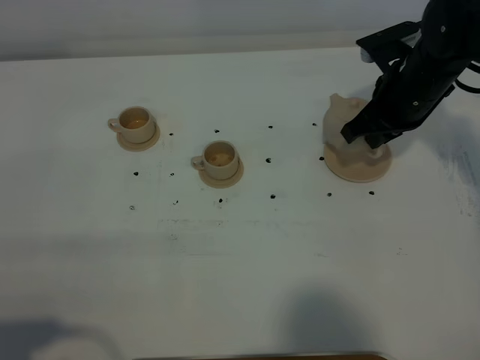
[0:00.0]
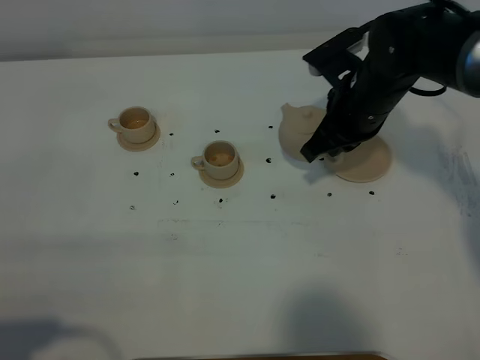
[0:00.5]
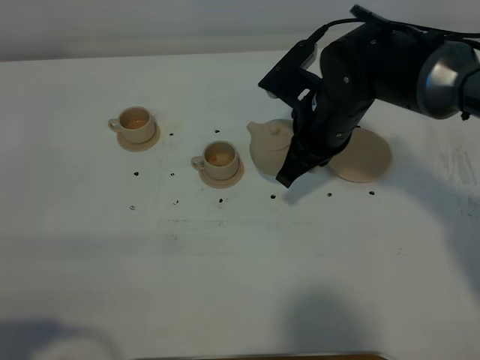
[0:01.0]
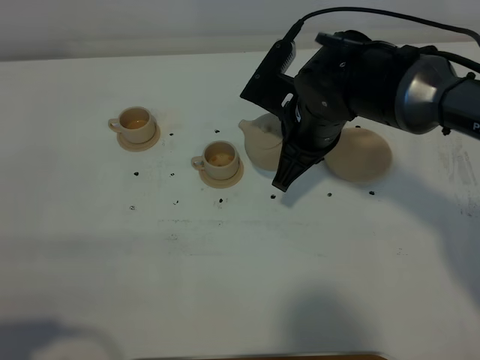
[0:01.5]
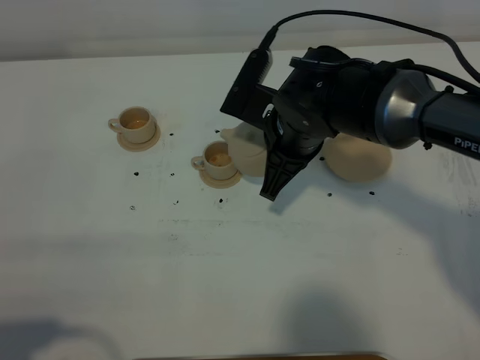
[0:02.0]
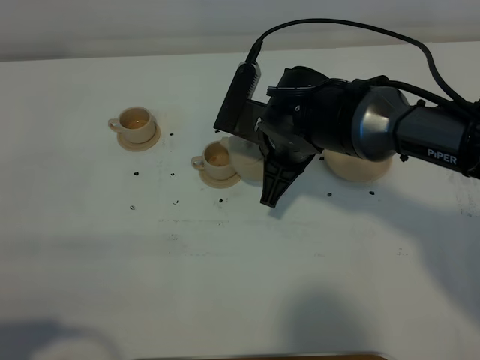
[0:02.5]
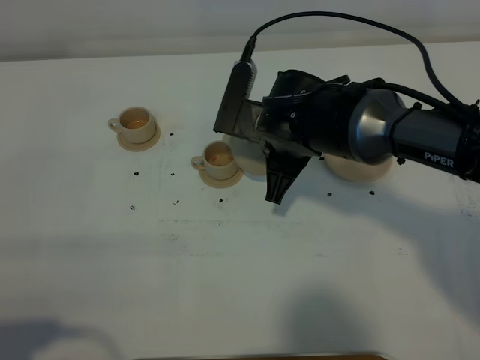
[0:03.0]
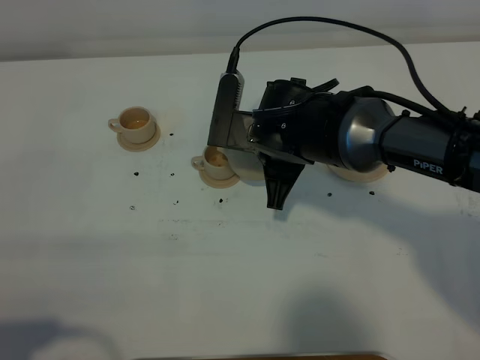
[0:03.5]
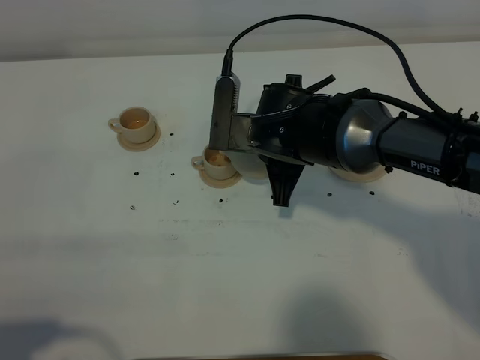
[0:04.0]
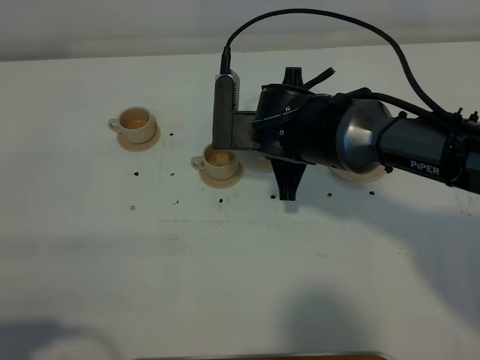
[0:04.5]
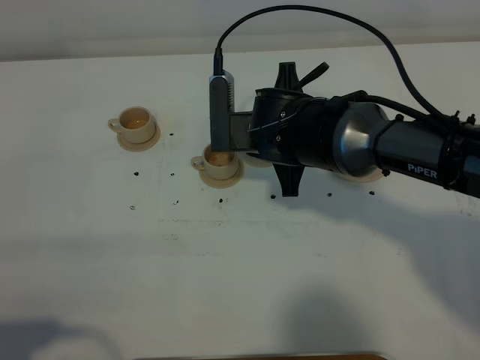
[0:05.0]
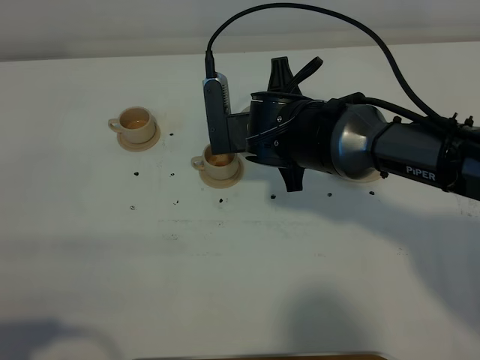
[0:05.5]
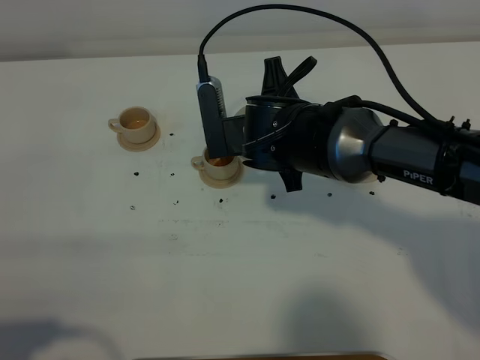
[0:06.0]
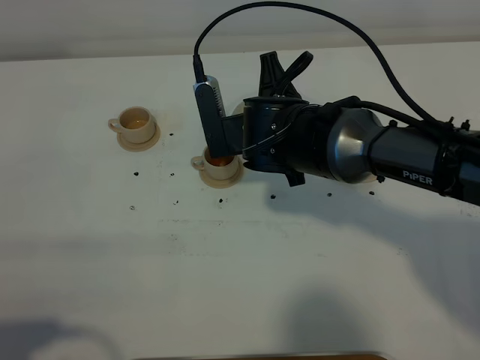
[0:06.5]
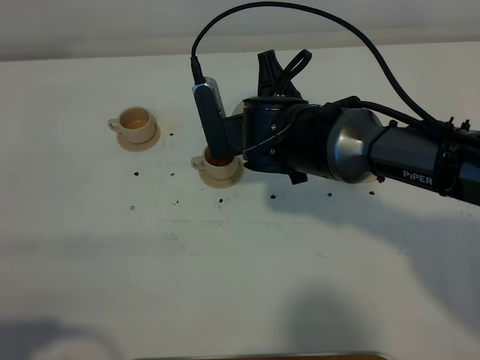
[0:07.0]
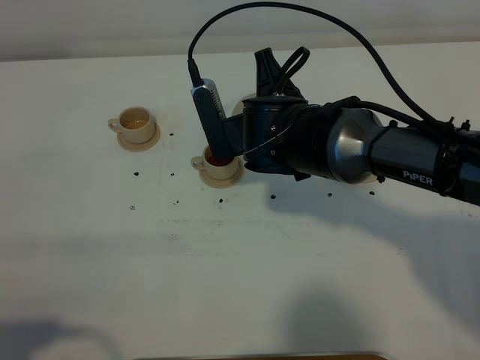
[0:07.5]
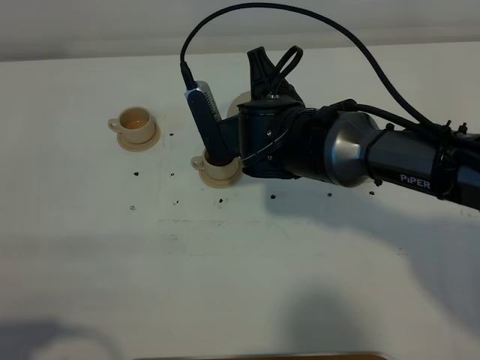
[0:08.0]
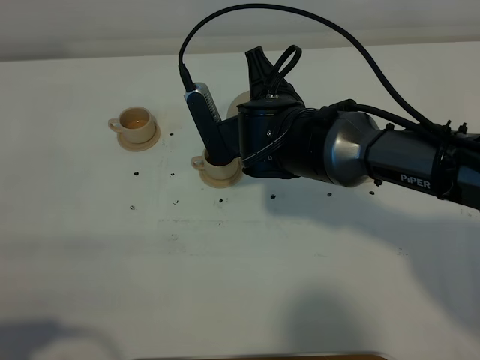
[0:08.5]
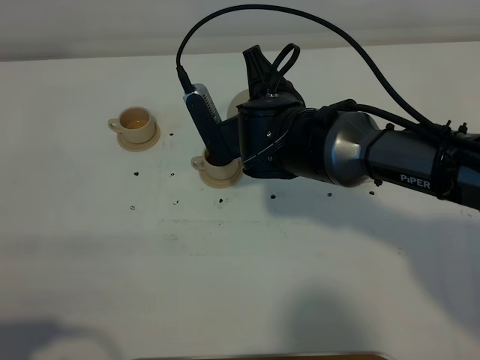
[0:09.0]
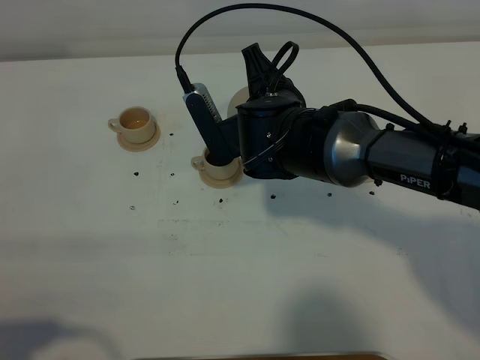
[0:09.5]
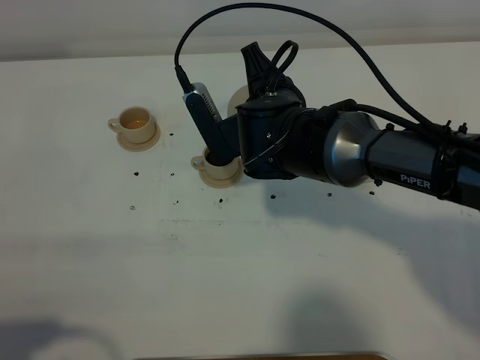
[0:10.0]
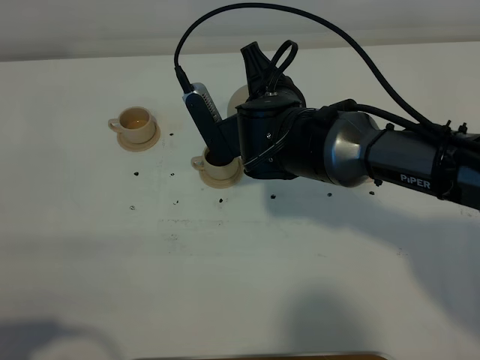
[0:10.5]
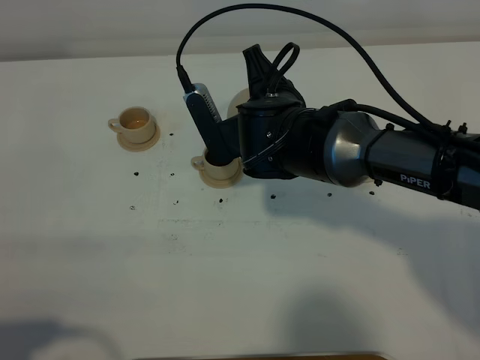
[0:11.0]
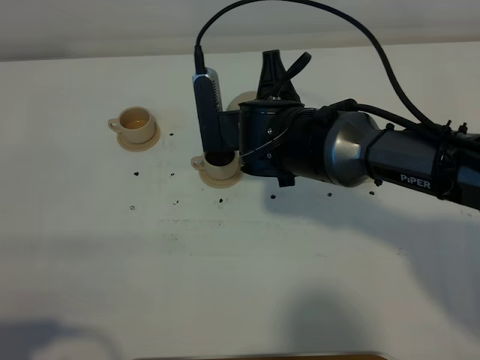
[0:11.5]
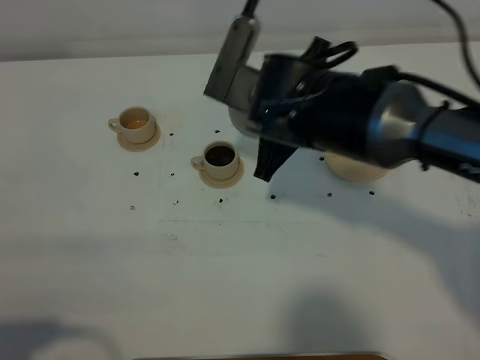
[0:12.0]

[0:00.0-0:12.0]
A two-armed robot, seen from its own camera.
Task of the whole recording: grasp the brown teapot and pour the tea into the two brown teacups one by one, put the brown teapot back in its original place.
0:00.0 to 0:02.0: The right gripper shifts some 15 cm to the left.
0:04.0 to 0:06.0: The grippers move only a little.
0:06.0 to 0:10.0: The grippers move only a little.
0:10.0 to 0:12.0: The right gripper shifts by about 5 cm.

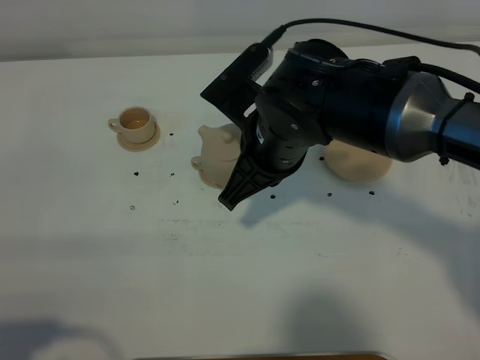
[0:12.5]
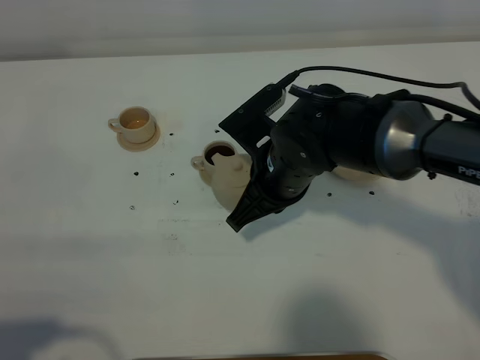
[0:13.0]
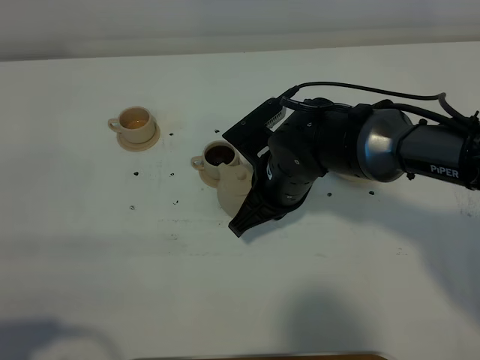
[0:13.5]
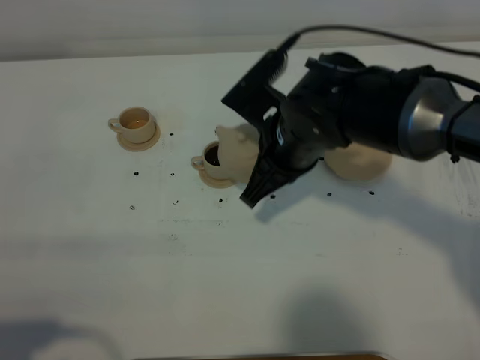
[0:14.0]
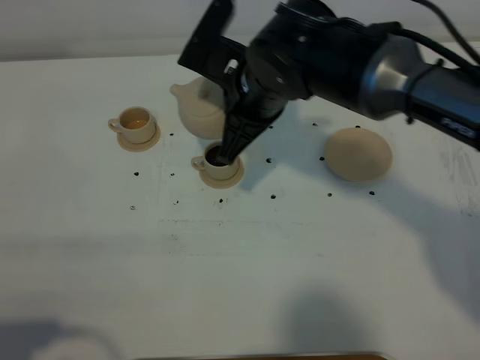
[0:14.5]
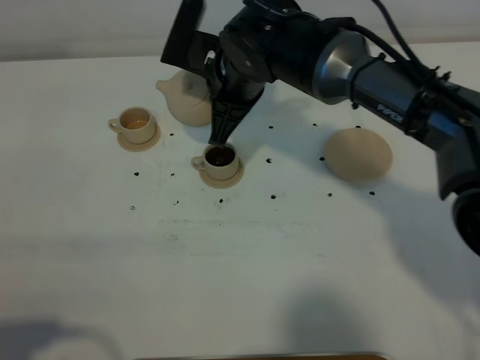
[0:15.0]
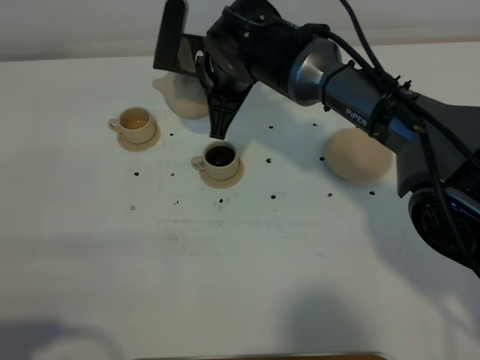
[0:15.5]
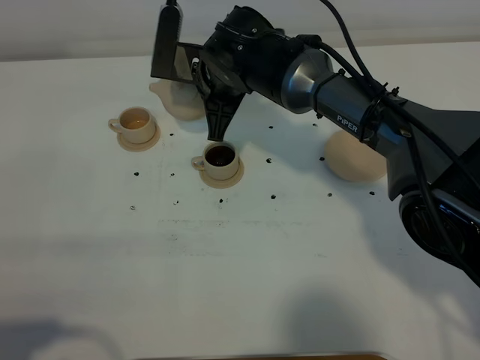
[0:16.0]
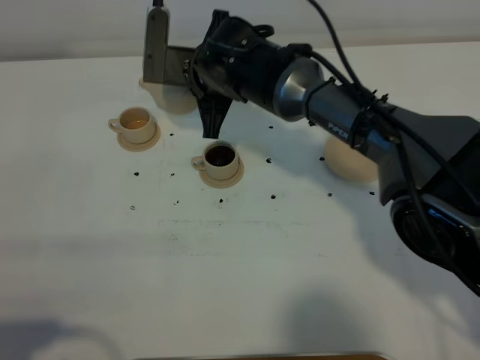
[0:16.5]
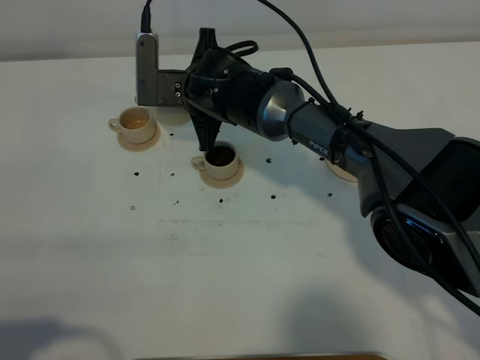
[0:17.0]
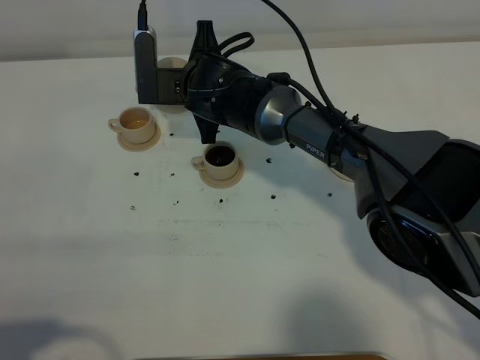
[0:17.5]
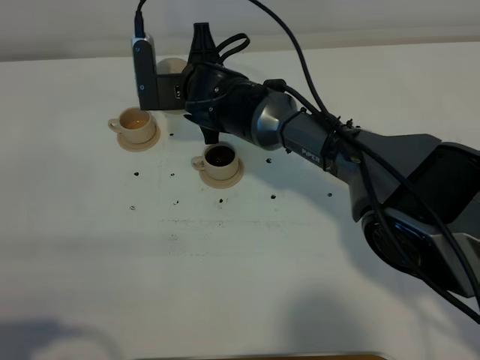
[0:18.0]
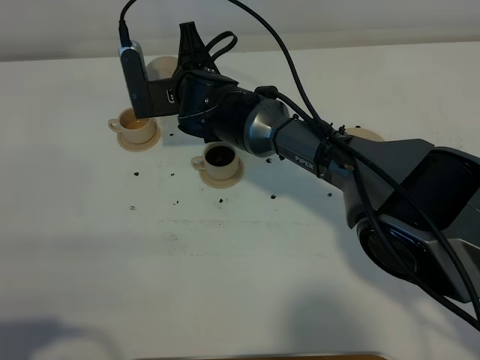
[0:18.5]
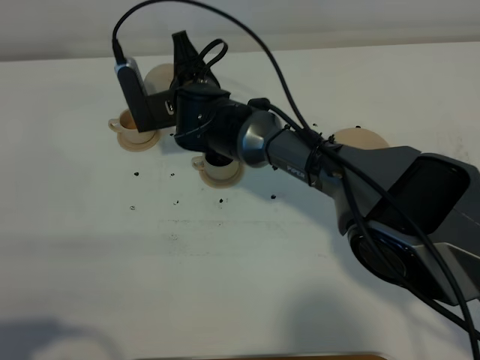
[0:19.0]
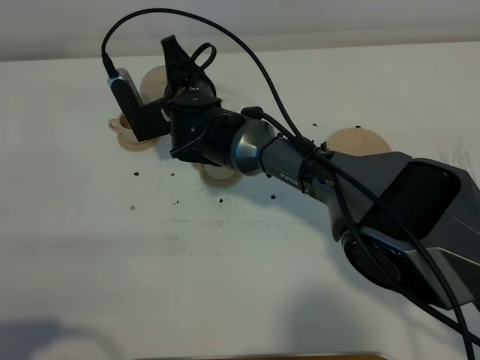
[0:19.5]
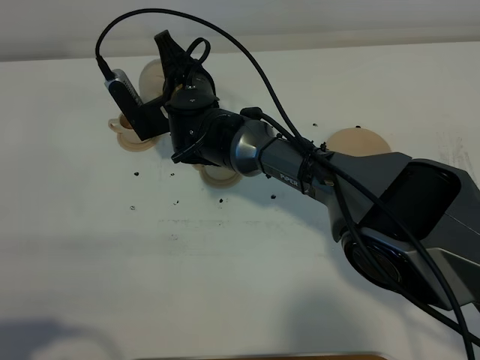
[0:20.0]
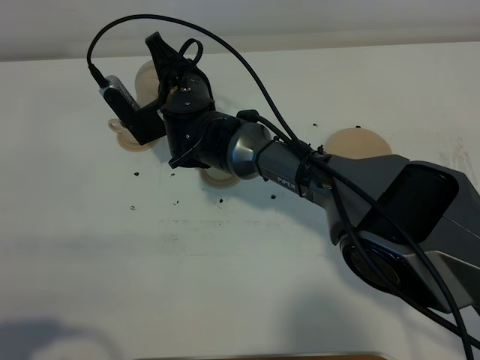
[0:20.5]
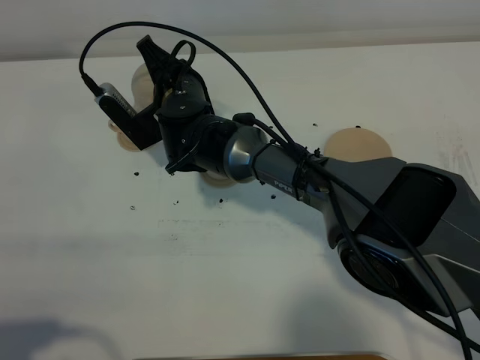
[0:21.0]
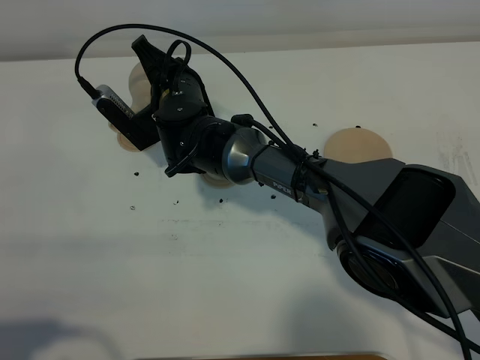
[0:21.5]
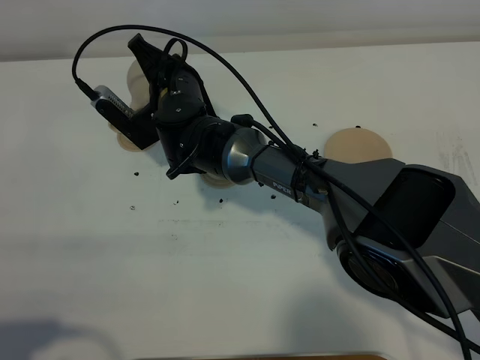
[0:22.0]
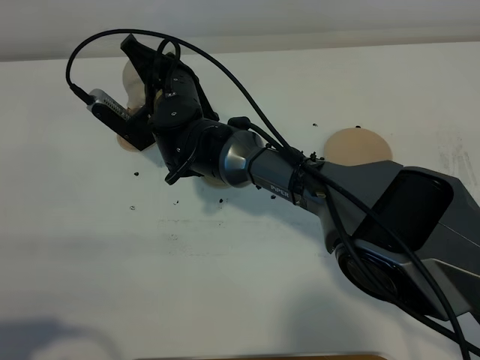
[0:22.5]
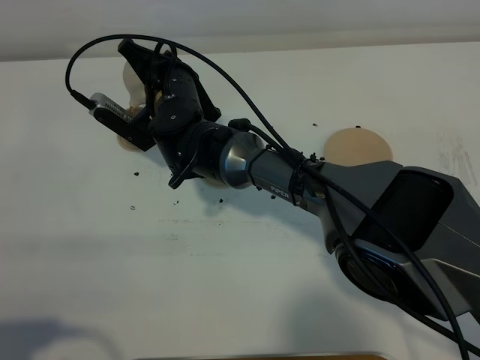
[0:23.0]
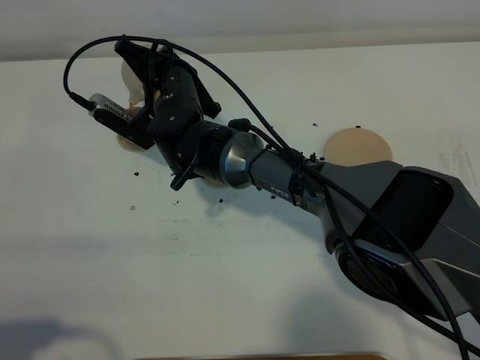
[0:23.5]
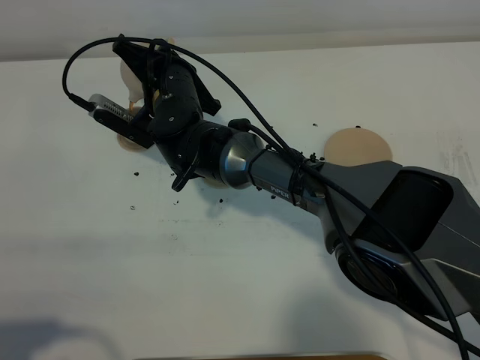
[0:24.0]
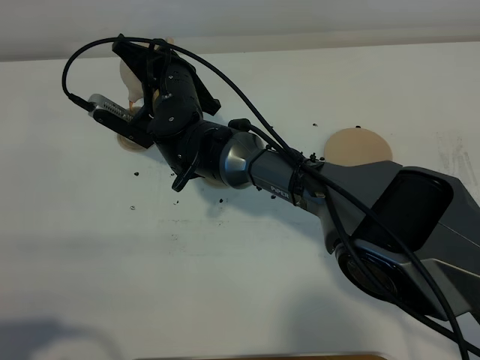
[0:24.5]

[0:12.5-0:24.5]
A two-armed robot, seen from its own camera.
Task of the whole recording: grasp the brown teapot and pour the tea into the two brown teacups one by one, put the brown teapot back in its original place.
0:12.5 to 0:14.5: The right gripper goes roughly 5 cm forward, and reaches some 10 cm downward, then returns.
0:14.5 to 0:16.5: The right gripper heads forward and downward, covering some 10 cm.
0:20.5 to 0:22.5: The grippers make only small movements.
0:22.5 to 0:24.5: There are only small adjustments of the grippers.

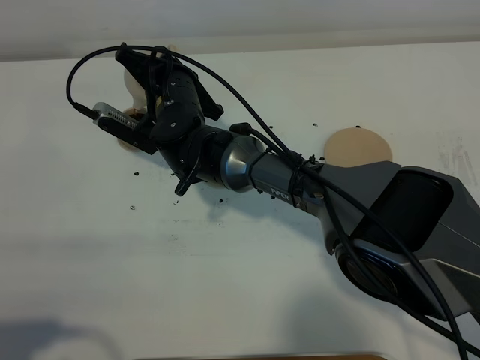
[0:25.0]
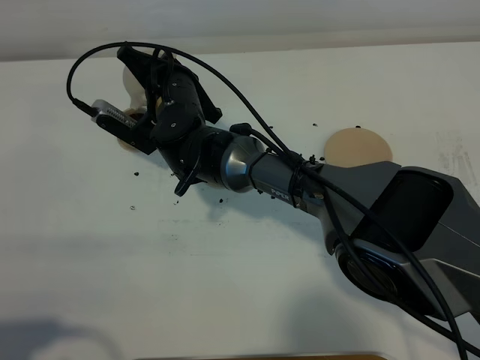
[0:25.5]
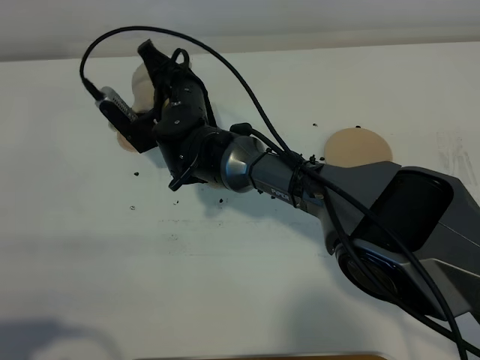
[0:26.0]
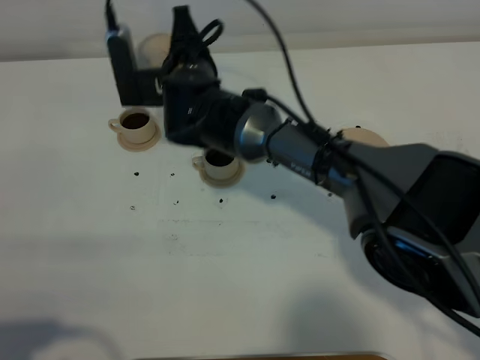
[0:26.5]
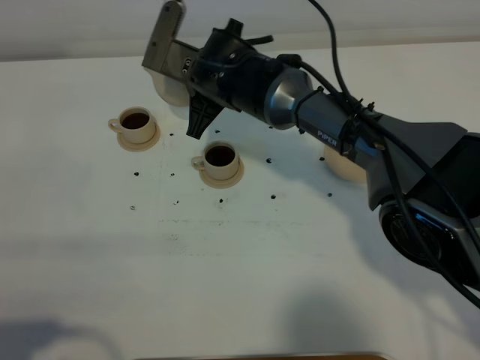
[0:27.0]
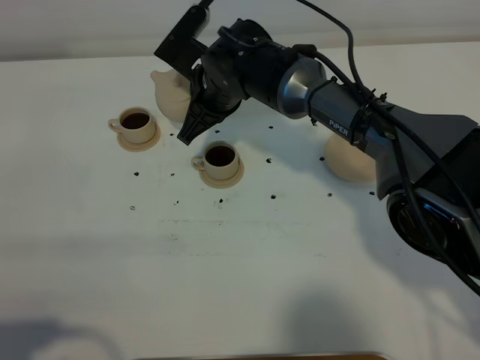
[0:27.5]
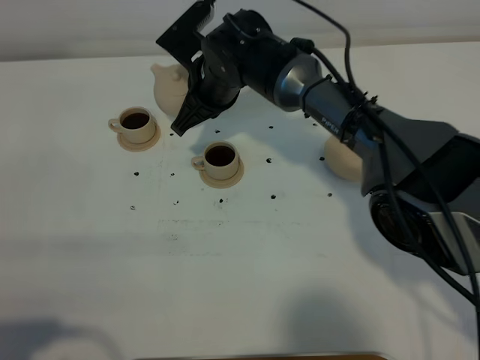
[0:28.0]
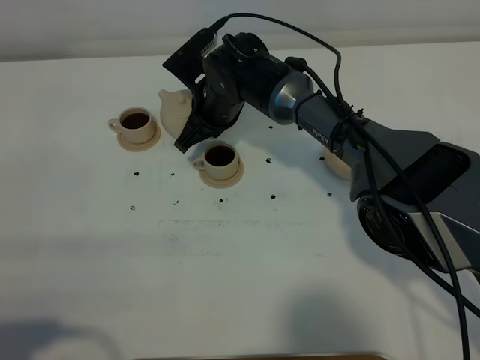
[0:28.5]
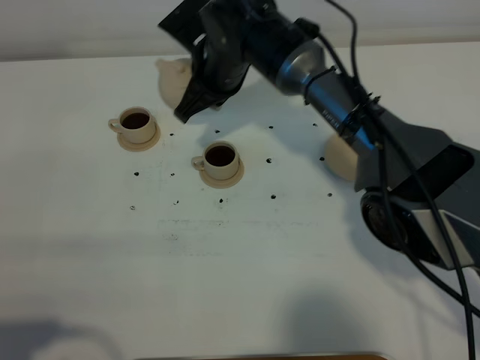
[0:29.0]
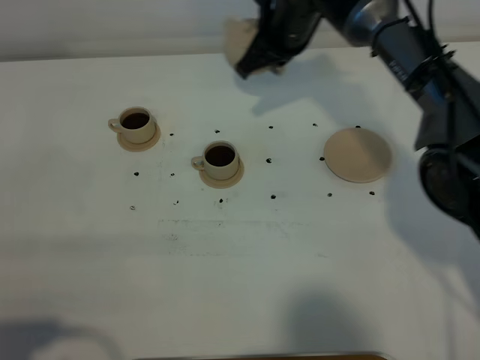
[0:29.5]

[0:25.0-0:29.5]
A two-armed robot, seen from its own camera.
Task of the whole recording: grasp the brown teapot and pour the tea into the two brown teacups one by one, put the brown teapot back in its original place.
0:25.0 to 0:27.0: The right gripper is displaced to the right by some 5 cm.
0:27.0 to 0:29.5: The right gripper moves to the right, some 10 cm.
